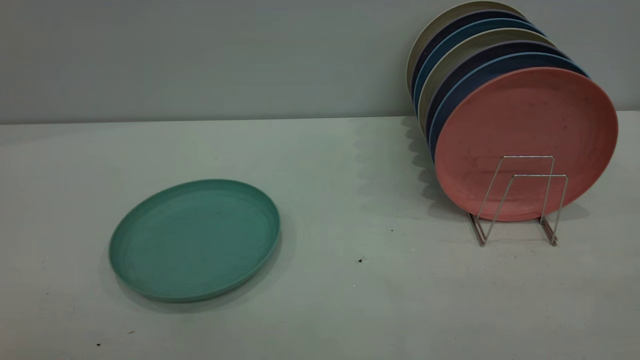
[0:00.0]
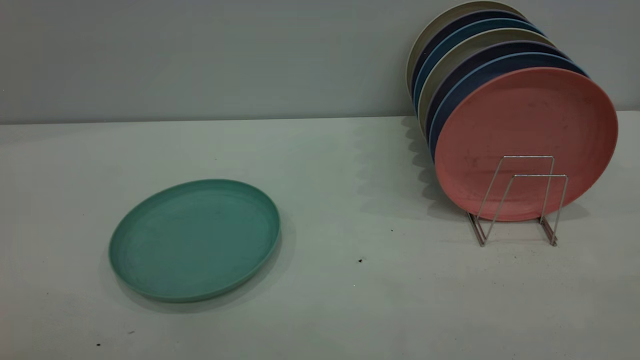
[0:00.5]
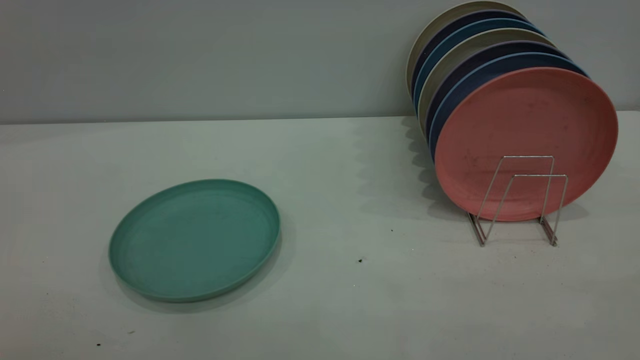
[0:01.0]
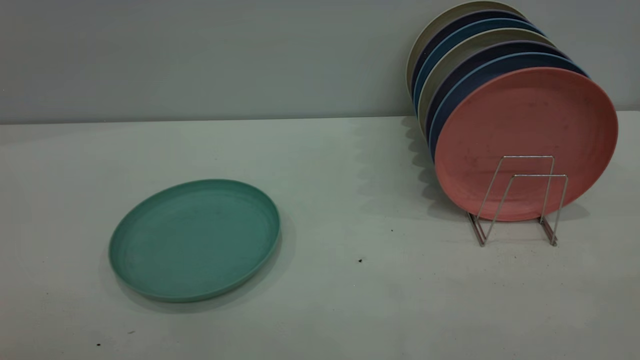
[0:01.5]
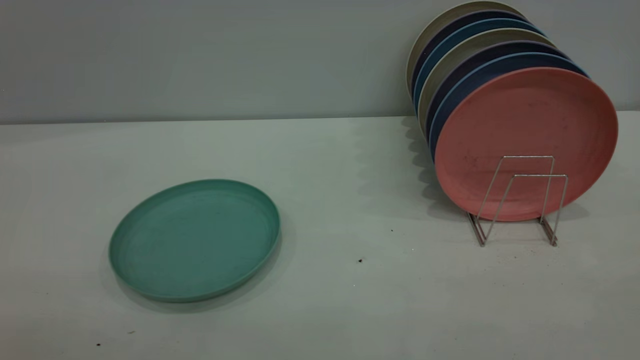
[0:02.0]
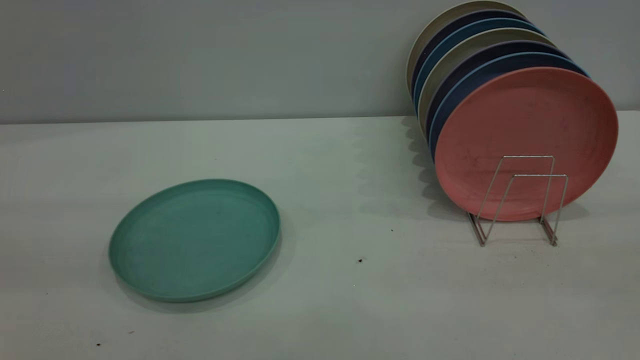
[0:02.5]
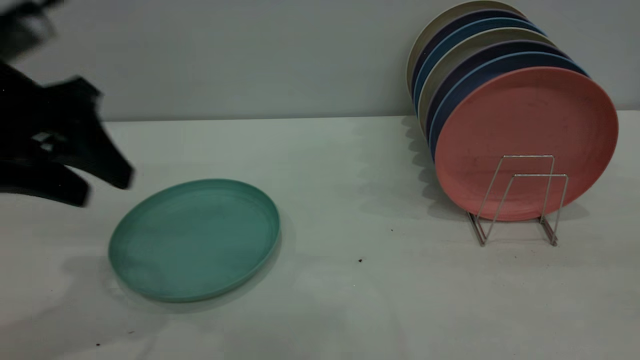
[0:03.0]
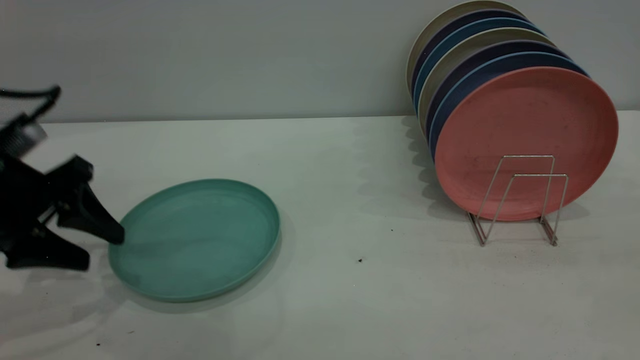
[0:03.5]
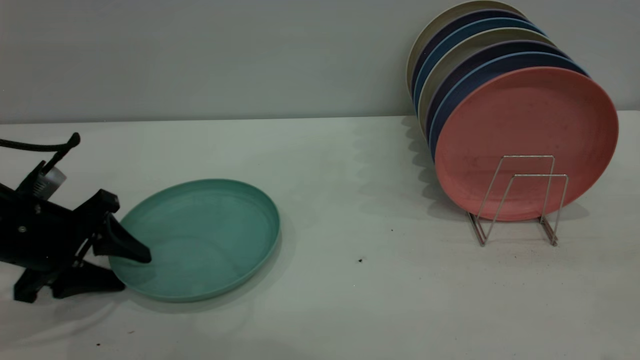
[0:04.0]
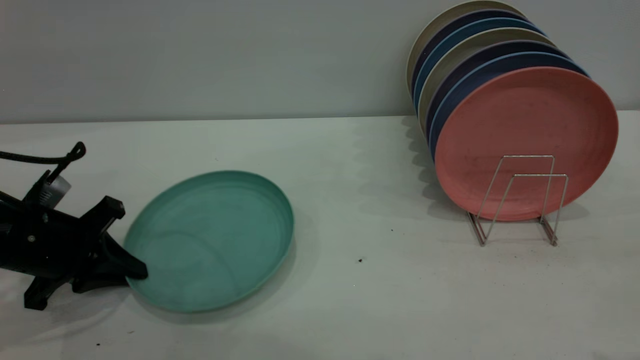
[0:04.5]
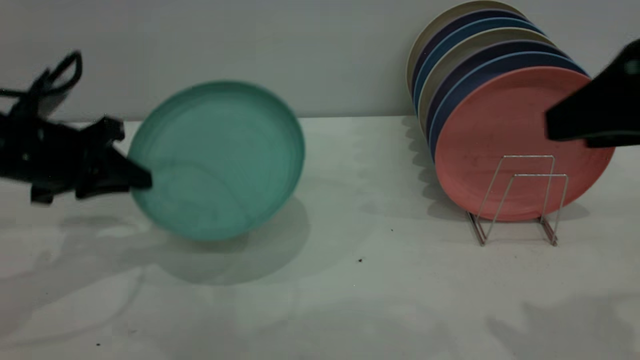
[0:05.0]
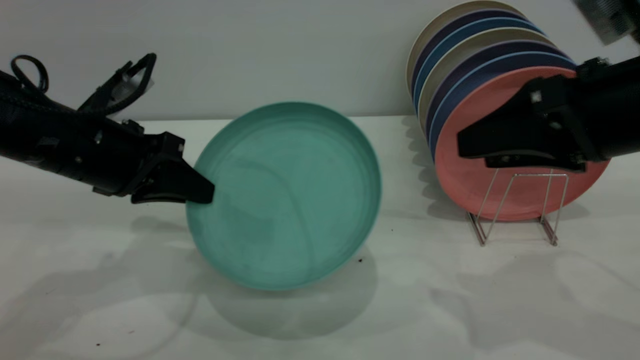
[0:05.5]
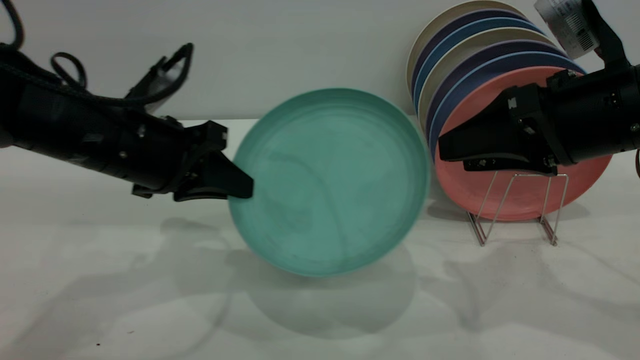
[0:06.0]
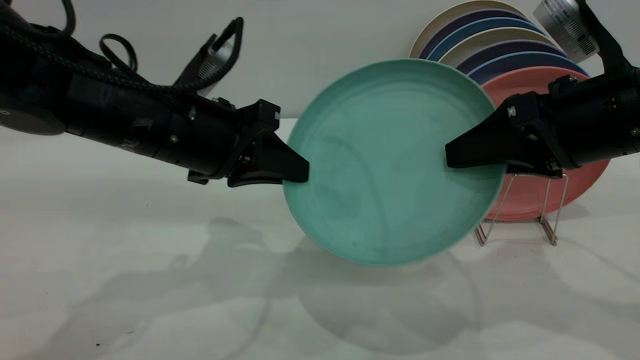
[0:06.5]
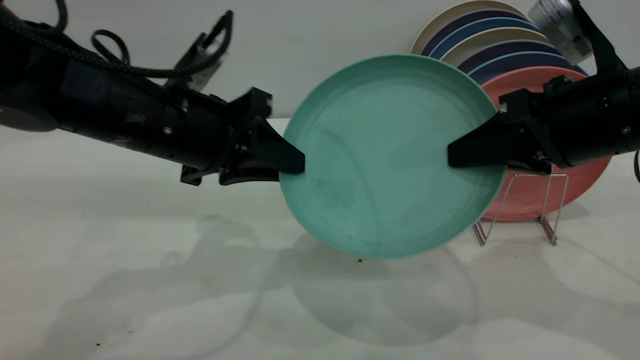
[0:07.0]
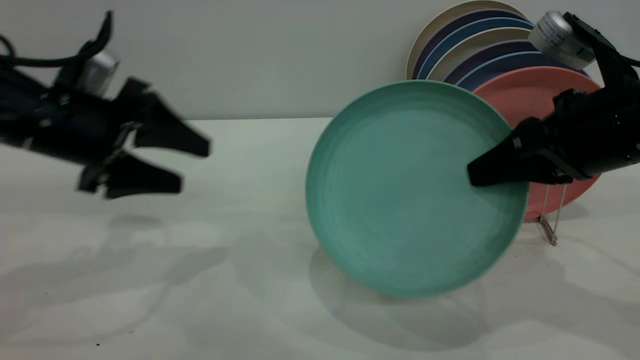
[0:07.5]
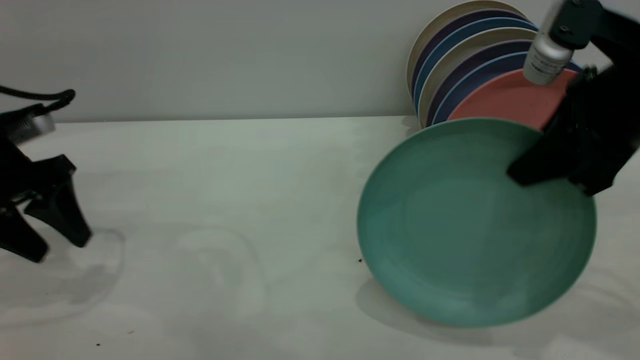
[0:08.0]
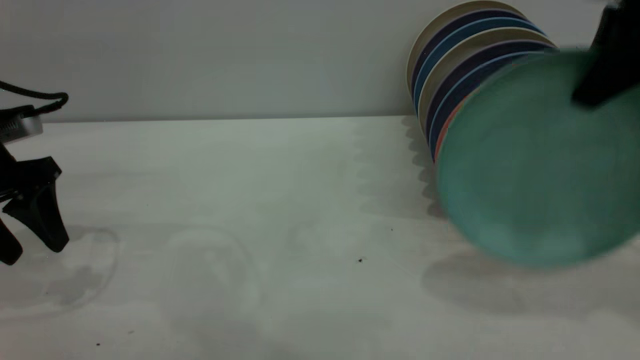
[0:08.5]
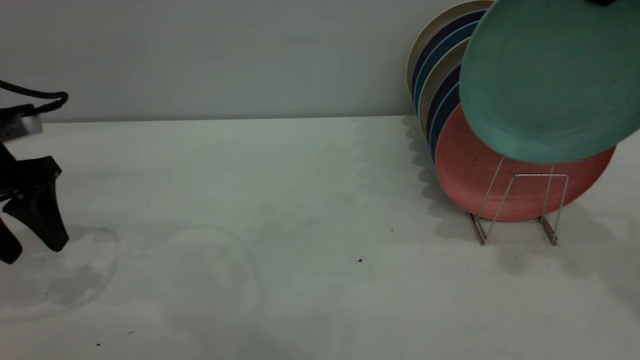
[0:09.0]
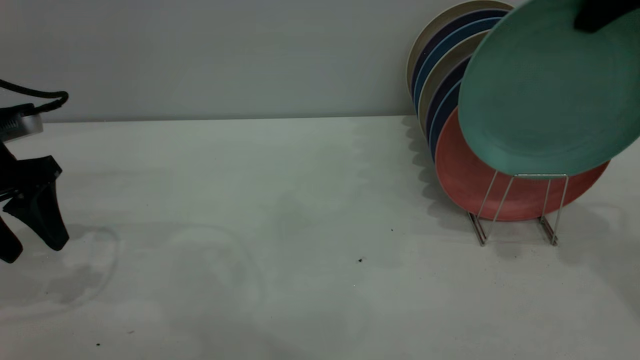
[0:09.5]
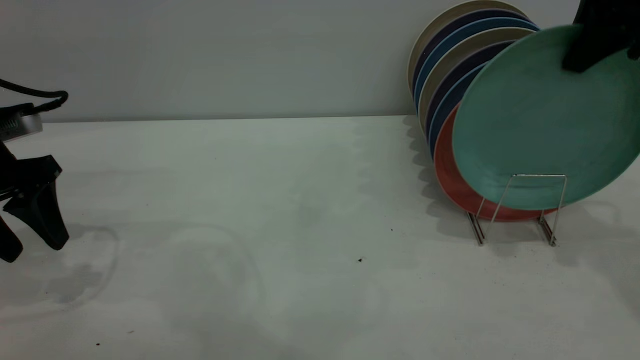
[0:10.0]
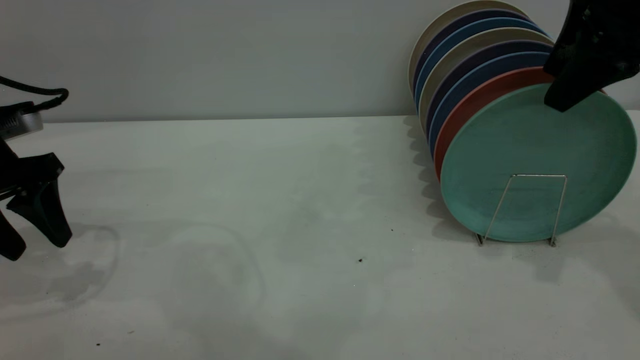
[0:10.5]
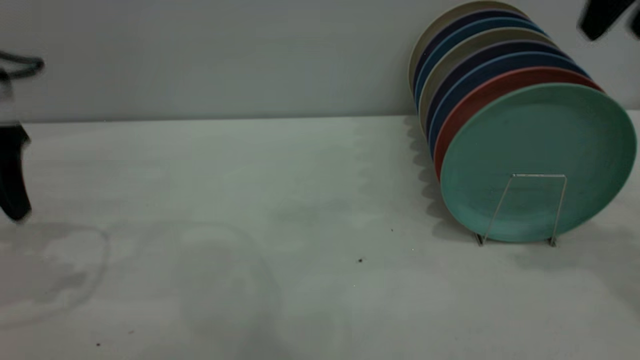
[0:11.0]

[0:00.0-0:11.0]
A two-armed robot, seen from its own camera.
Task of the whole recording: the left gripper grasp the green plate, the left gripper pass the green plate to the right gripper, and the right gripper place the green plate on the plate rack.
Step, 0:00.0 to 0:04.5: Pick up the plate with the left gripper.
Step, 0:05.5 to 0:07.0: Pass the plate from the left gripper to the right gripper.
Step, 0:07.5 to 0:10.5: Place the plate on the shelf.
0:02.0 to 0:03.5: The left gripper travels forward and downward by approximately 40 cm.
0:03.5 to 0:05.5: The left gripper heads to the right, covering about 10 cm, moves some 5 cm downward and comes back, and closes; the right gripper shifts roughly 20 cm forward and downward.
0:05.5 to 0:07.5: The right gripper closes its fingers, while the left gripper travels to the right and back again, roughly 10 cm each way, and opens up.
0:07.5 to 0:09.0: The left gripper goes approximately 5 cm to the left, while the right gripper goes approximately 20 cm upward.
0:09.0 to 0:11.0: The left gripper heads upward, covering roughly 5 cm. The right gripper opens.

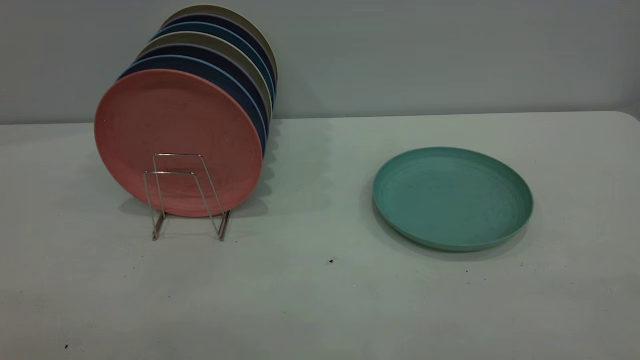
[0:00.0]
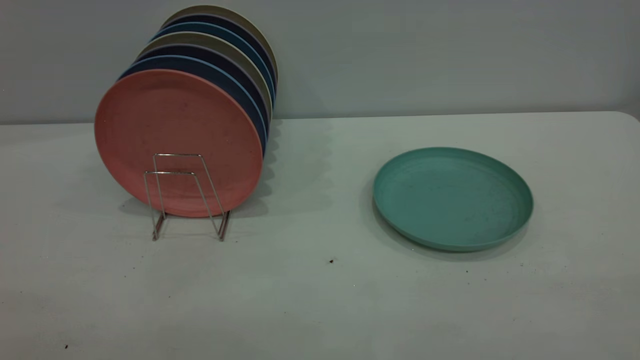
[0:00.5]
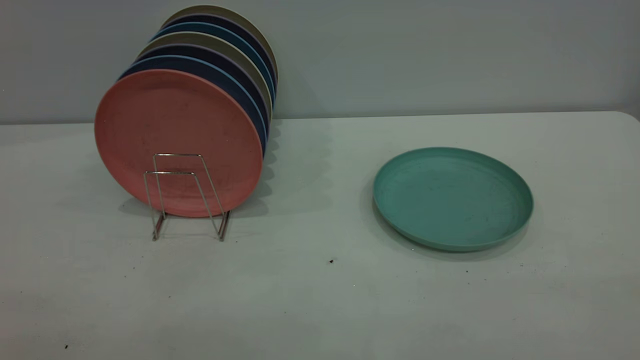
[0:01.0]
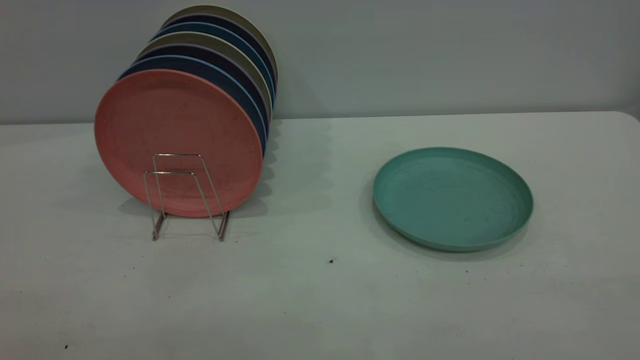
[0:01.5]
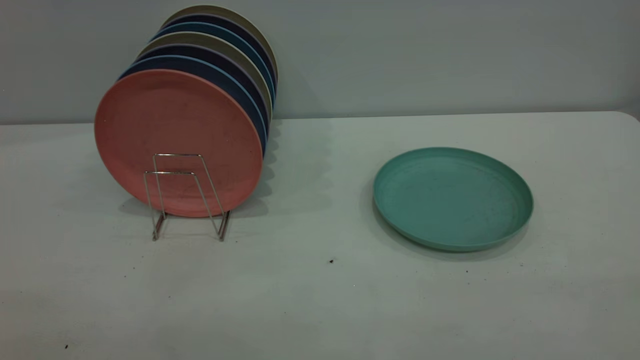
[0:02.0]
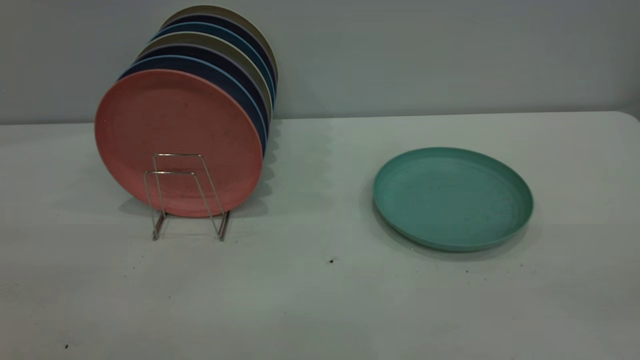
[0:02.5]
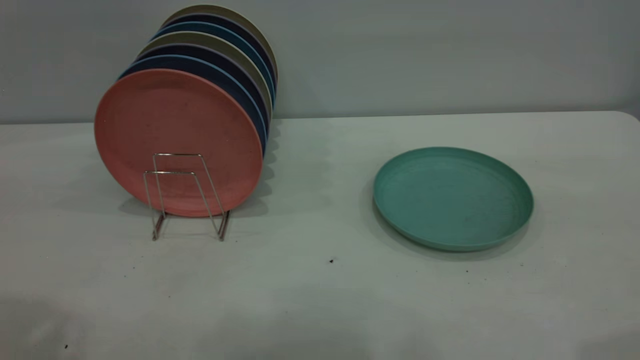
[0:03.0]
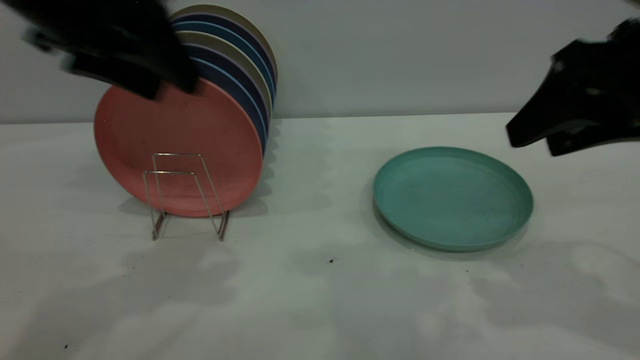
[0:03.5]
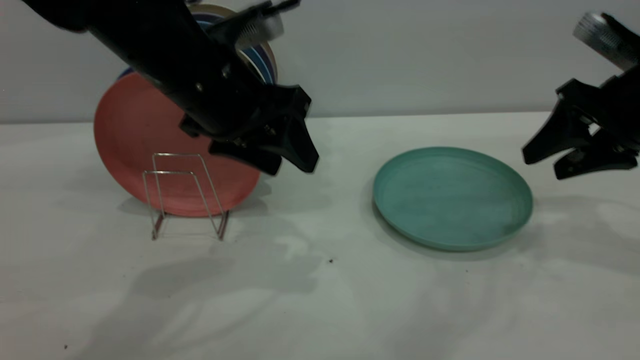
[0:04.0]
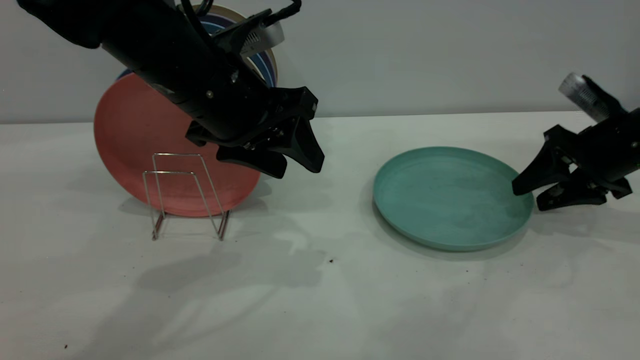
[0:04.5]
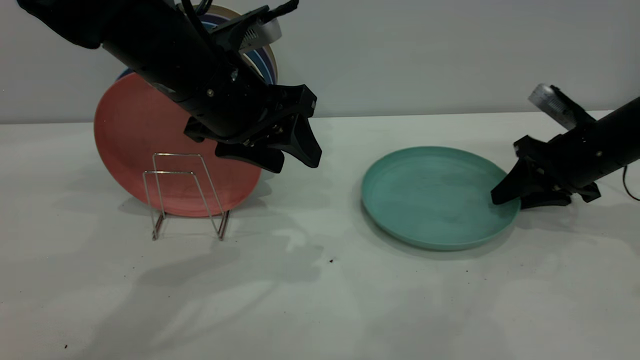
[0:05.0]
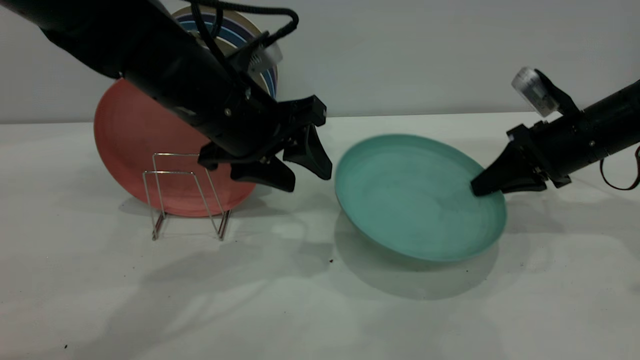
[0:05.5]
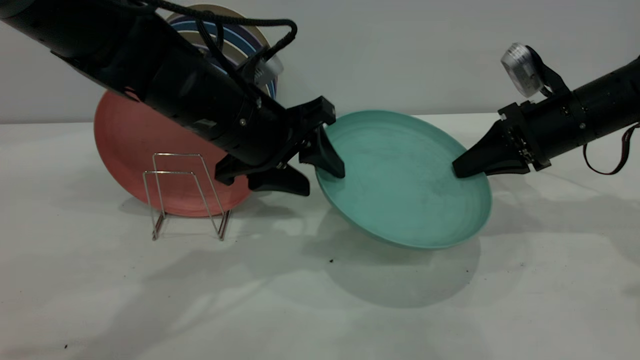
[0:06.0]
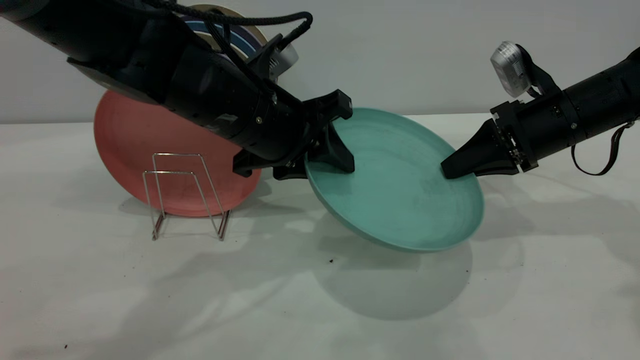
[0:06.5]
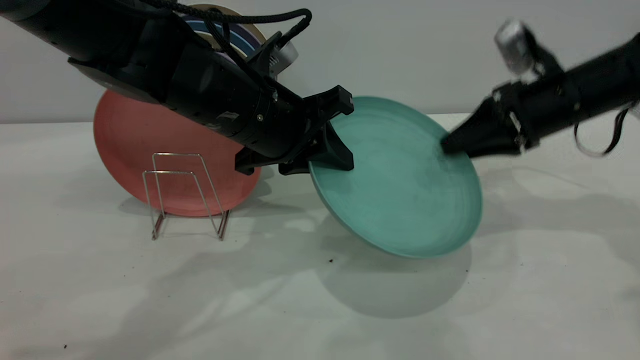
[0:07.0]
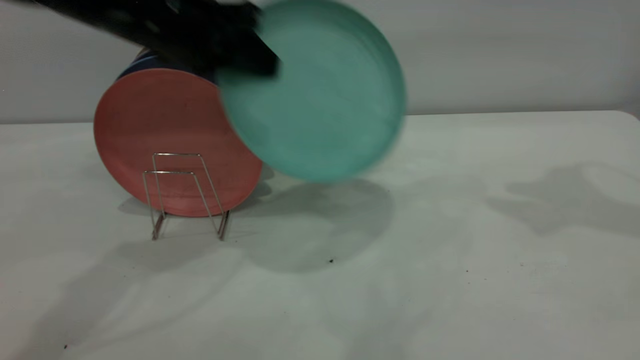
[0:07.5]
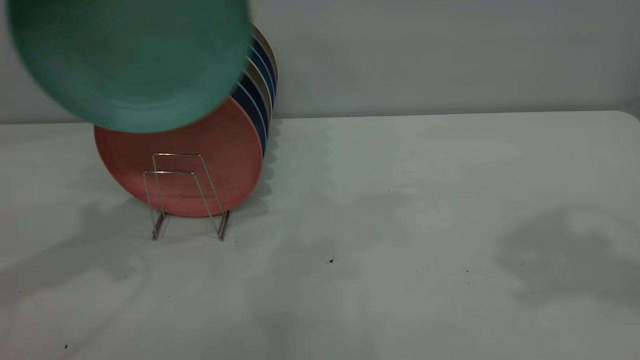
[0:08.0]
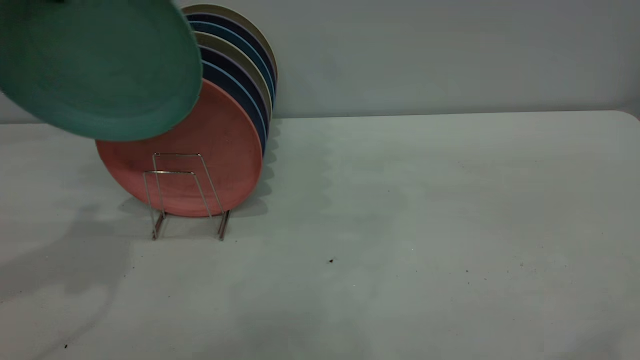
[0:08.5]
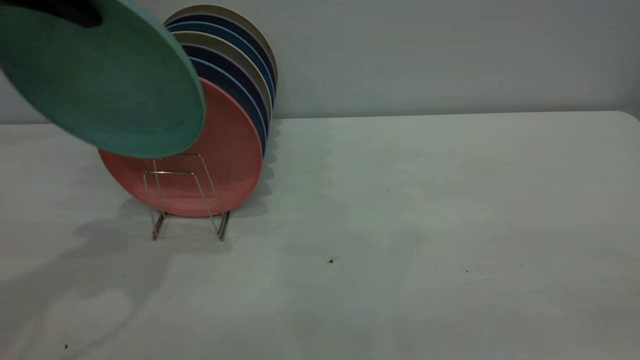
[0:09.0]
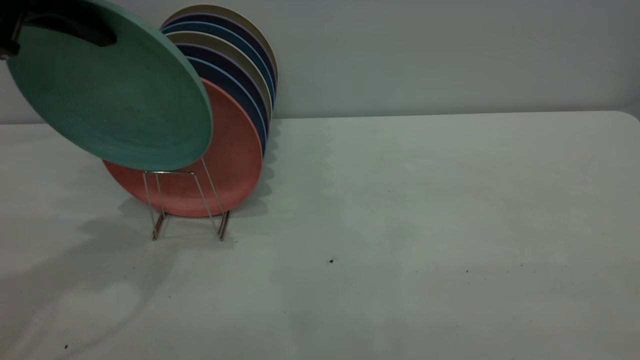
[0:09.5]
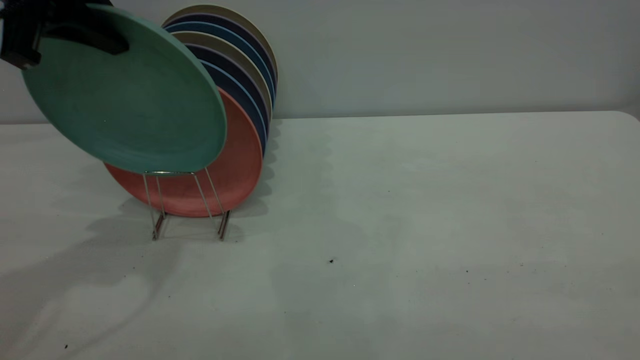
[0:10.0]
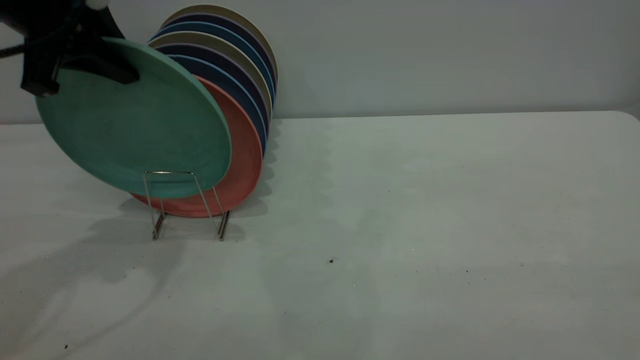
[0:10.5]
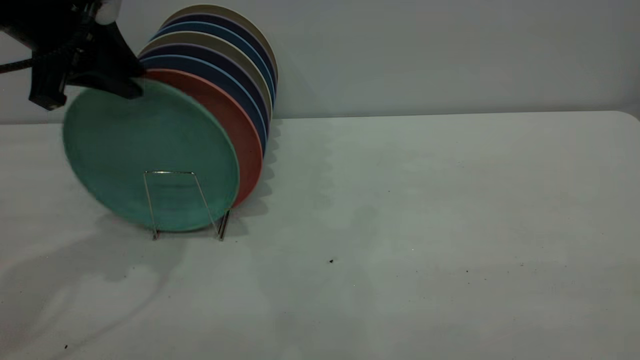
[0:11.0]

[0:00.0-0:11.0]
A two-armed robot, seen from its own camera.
Task of the whole recording: the right gripper grasp the green plate, the right gripper pass the green plate to the left gripper, and the left gripper place the green plate on the plate rack.
Step, 0:00.0 to 0:05.0: Pick up the plate with the right gripper.
Step, 0:05.5 to 0:07.0: Pass the plate from the right gripper to the left gripper.
0:00.0 to 0:02.0: Neither gripper changes place.
0:02.0 to 0:03.5: Both grippers move forward, about 35 cm. The right gripper opens its fingers.
0:03.5 to 0:05.5: The left gripper is displaced downward and to the right by about 15 cm; the right gripper travels downward and forward by roughly 20 cm, and closes its fingers.
0:05.5 to 0:07.5: The left gripper goes about 10 cm upward and to the left, and closes; the right gripper moves upward, some 25 cm, and opens up.
0:07.5 to 0:09.0: The left gripper is displaced to the left and upward by approximately 10 cm. The right gripper travels backward by approximately 35 cm.
0:09.0 to 0:11.0: The left gripper heads downward, covering about 5 cm, and opens up.
